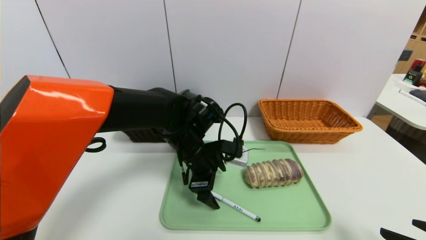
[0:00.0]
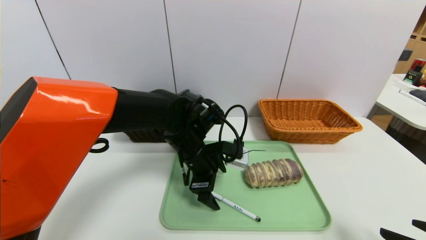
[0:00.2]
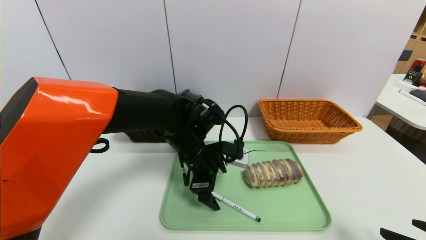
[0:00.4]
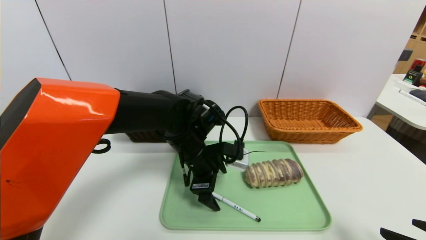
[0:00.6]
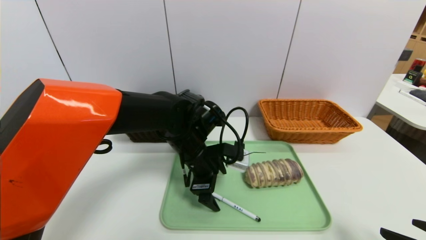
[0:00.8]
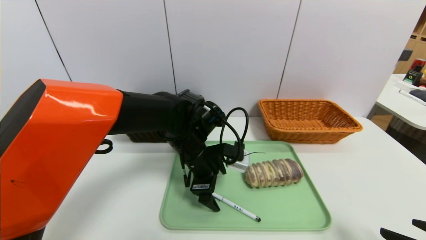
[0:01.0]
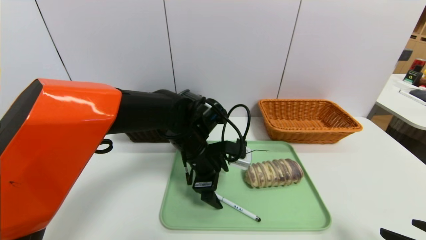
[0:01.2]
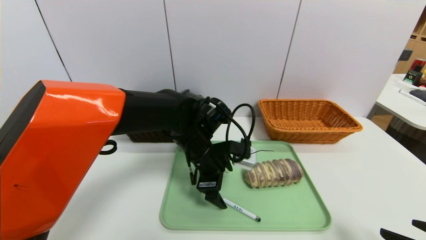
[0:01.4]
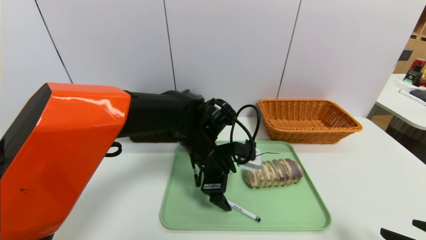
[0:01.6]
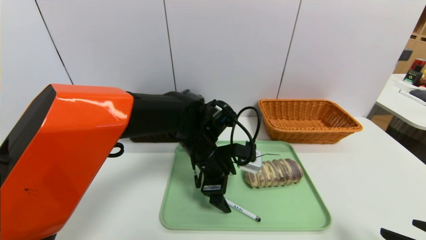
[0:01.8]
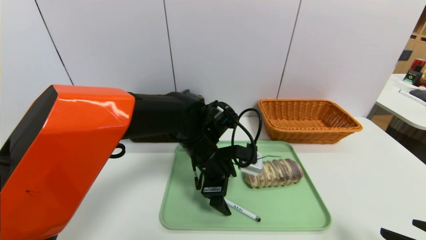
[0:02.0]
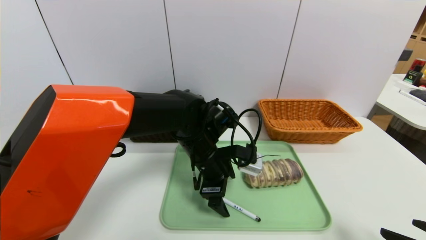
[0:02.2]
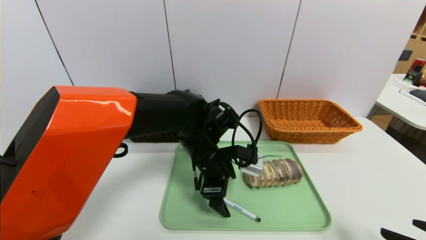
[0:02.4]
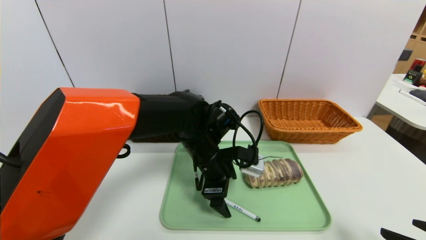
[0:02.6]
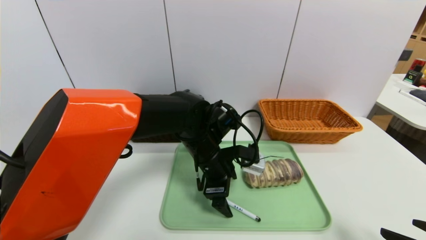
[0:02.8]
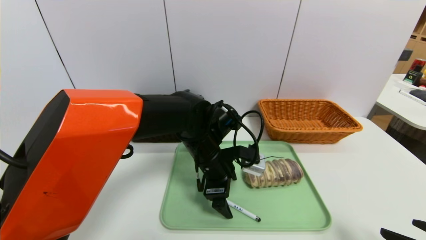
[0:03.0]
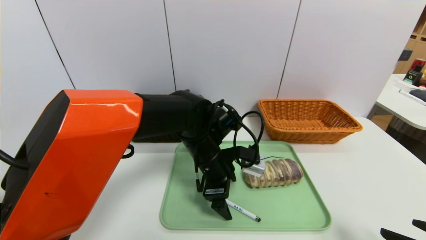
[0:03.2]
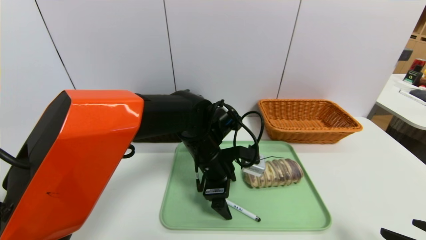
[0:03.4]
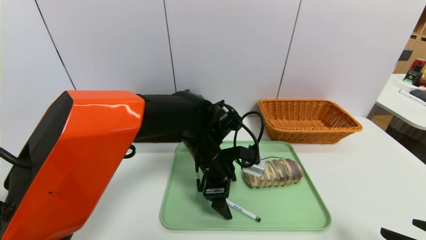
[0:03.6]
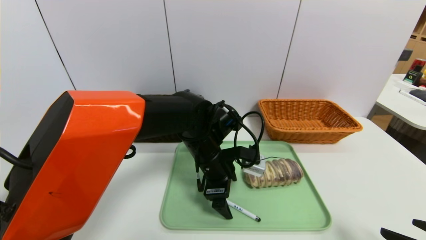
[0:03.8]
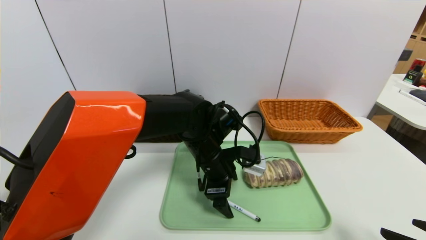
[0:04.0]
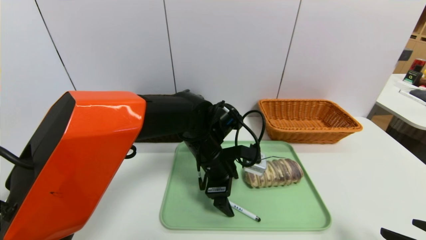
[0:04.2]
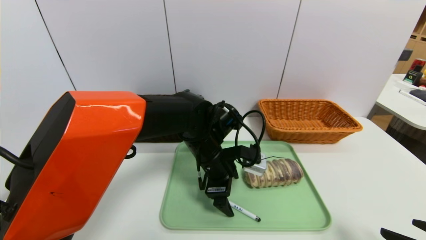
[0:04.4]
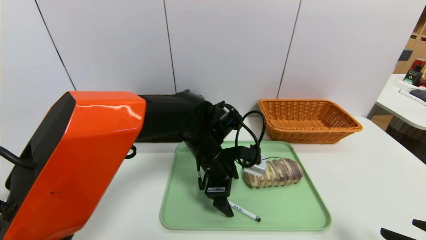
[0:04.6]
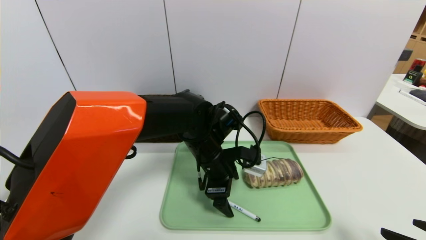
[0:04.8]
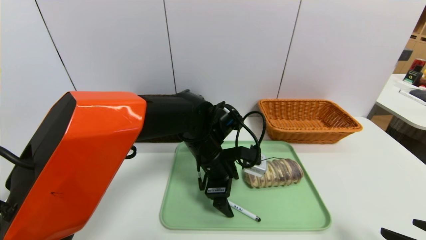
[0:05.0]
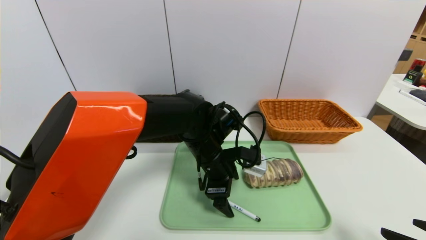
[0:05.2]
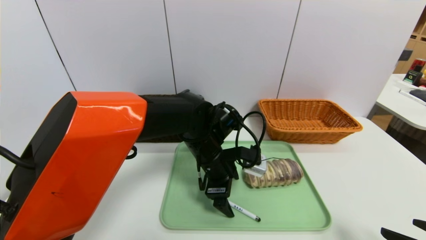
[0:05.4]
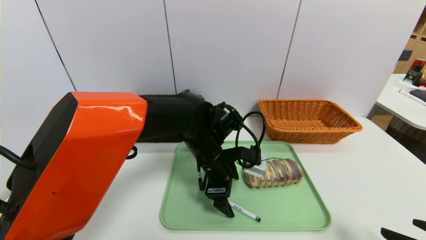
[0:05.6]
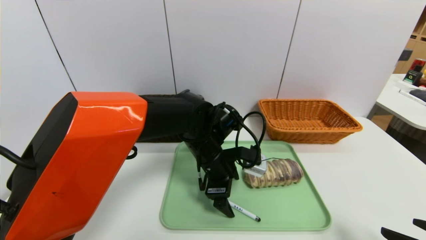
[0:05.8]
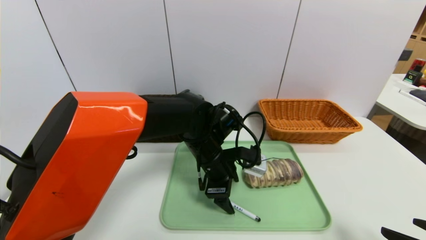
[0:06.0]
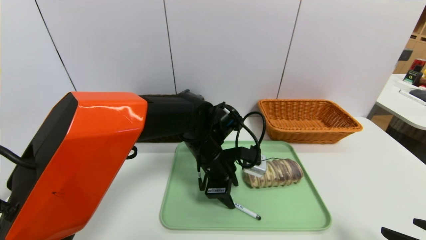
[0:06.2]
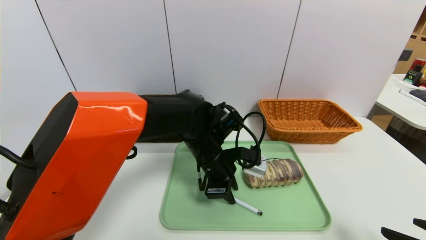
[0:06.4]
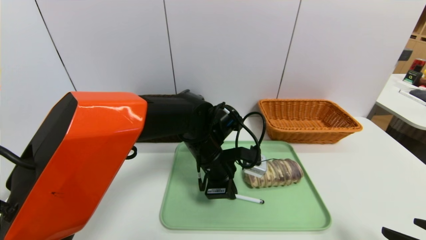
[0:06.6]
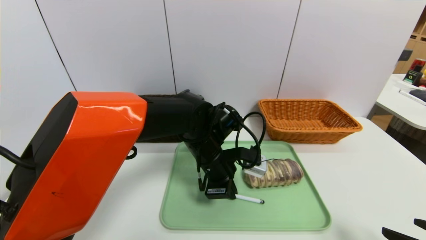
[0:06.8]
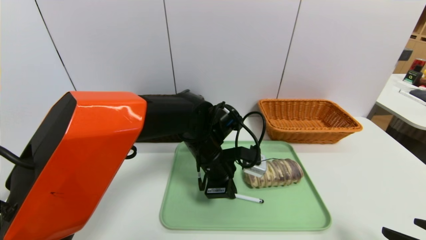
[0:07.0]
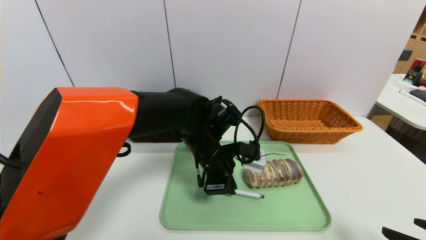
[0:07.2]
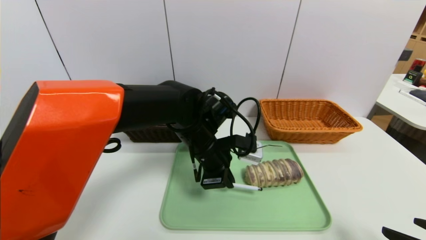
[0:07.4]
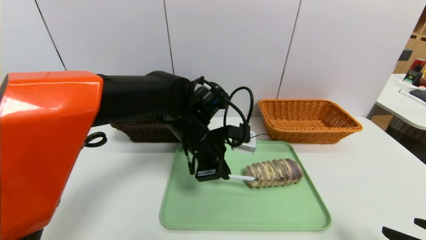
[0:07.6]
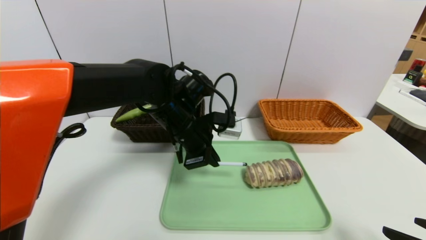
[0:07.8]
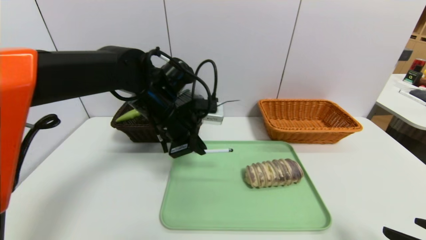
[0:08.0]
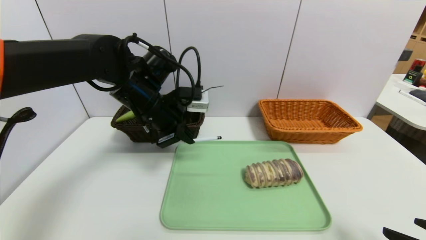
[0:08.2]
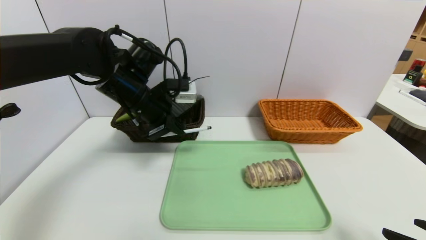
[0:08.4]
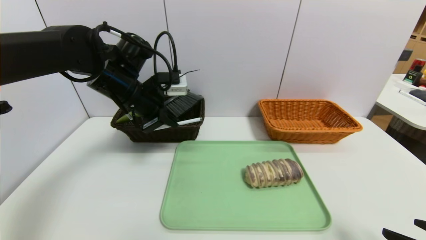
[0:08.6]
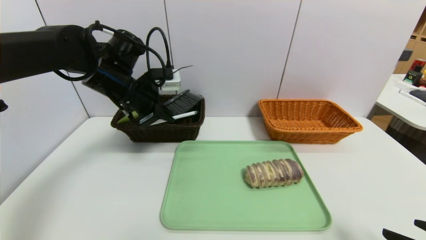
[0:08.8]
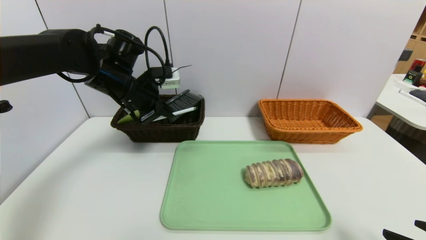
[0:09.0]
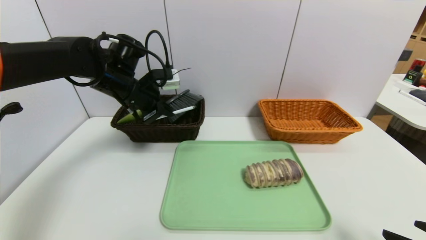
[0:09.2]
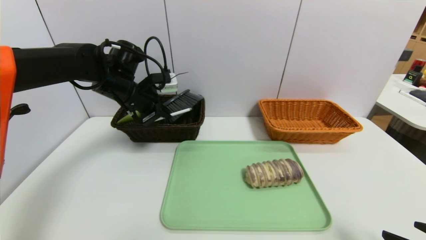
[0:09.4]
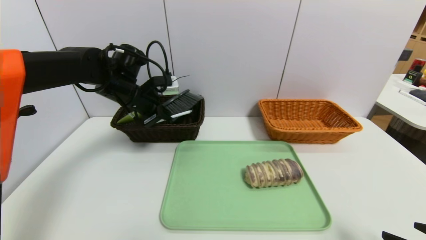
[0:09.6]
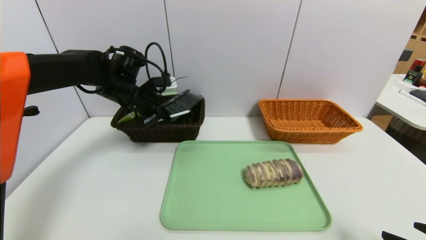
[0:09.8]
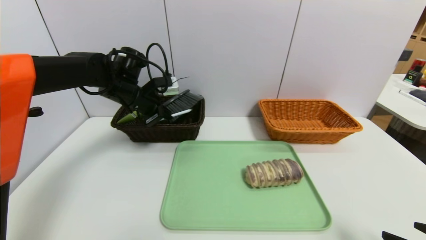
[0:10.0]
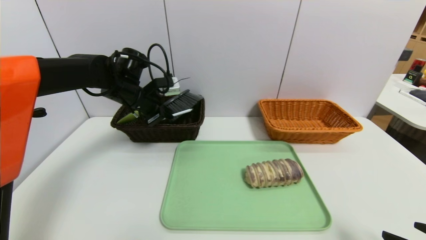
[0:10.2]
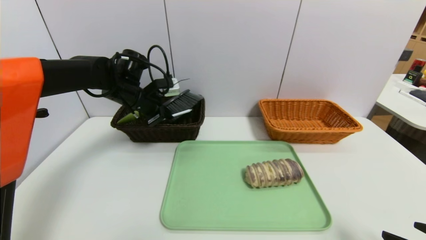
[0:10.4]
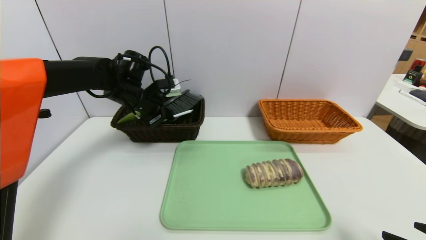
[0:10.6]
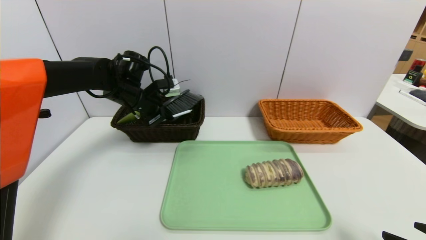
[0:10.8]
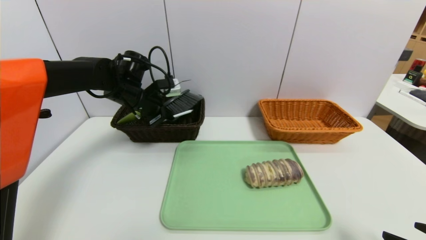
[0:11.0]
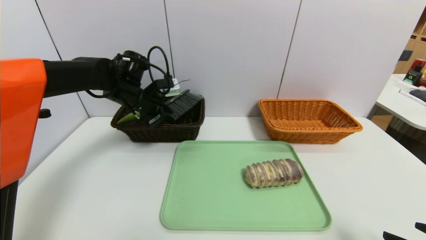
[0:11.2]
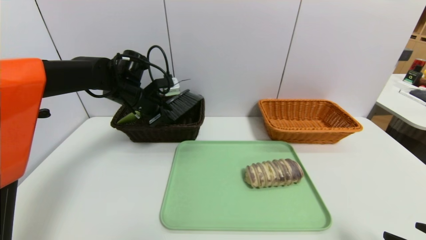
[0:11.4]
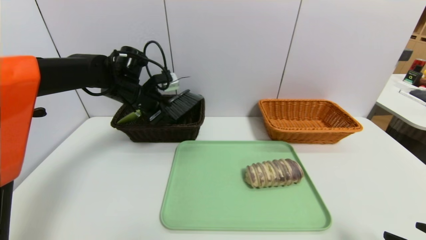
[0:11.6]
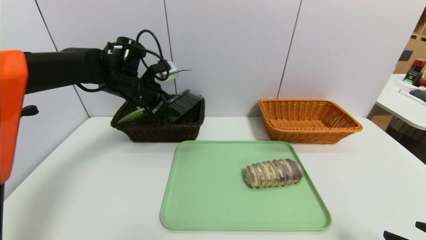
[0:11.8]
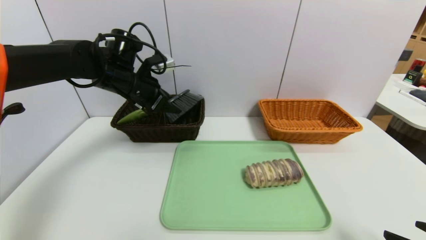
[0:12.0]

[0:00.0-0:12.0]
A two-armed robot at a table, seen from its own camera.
Task of the whole recording: place the food in the right basket with the right gripper, and place the non food items in the left basket with the left gripper.
Step, 0:00.0 to 0:11.6: Grasp the pen container and put it in the left basket.
0:00.0 to 0:03.0: The grippers make only small movements.
0:03.0 to 0:06.0: The two grippers keep their place.
0:06.0 to 0:07.6: The left gripper shifts by approximately 5 cm, and closes.
0:07.6 to 0:09.0: The left gripper heads to the left and upward, covering about 15 cm.
0:09.0 to 0:10.4: The left gripper goes some 5 cm forward.
0:10.4 to 0:12.0: The left gripper opens.

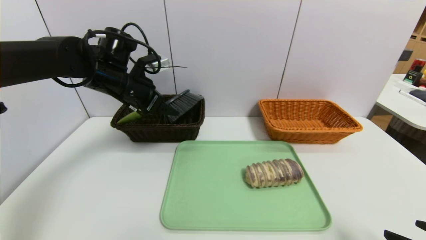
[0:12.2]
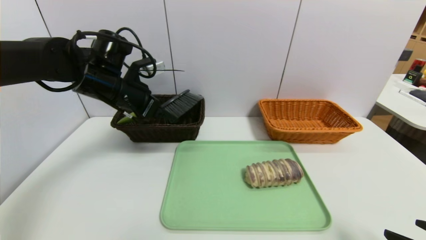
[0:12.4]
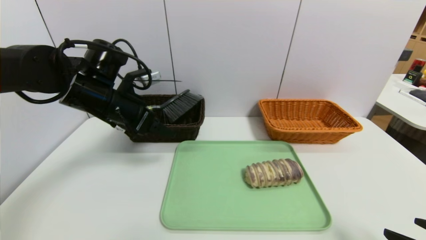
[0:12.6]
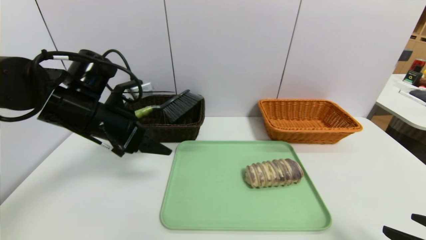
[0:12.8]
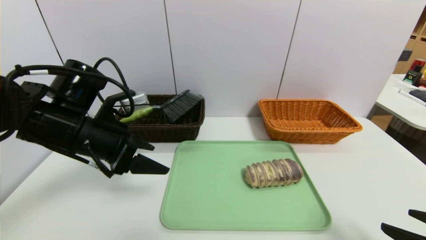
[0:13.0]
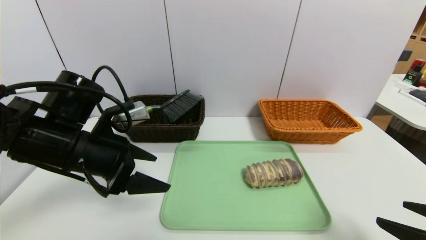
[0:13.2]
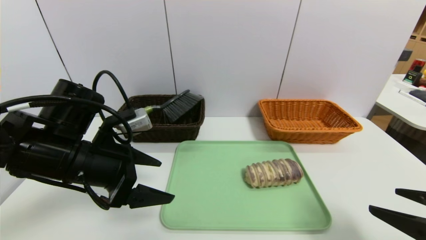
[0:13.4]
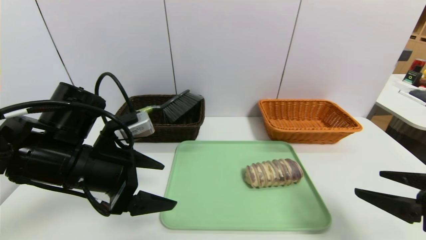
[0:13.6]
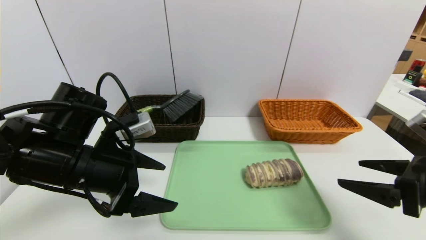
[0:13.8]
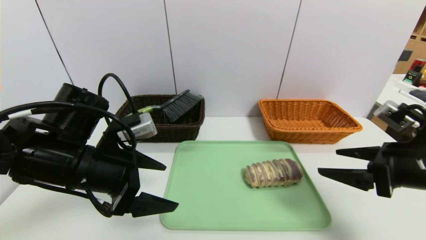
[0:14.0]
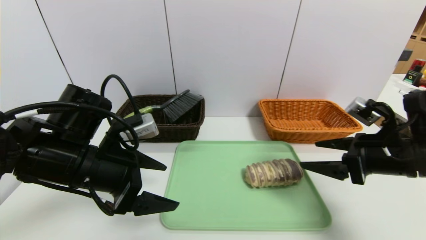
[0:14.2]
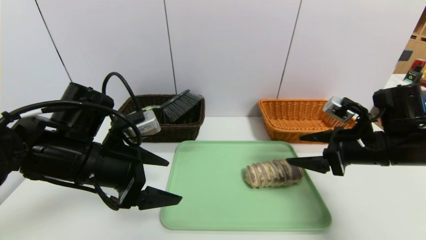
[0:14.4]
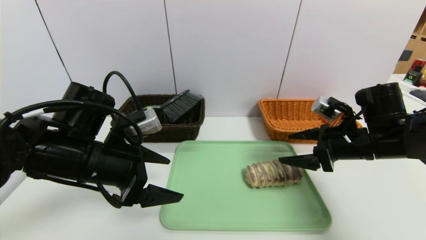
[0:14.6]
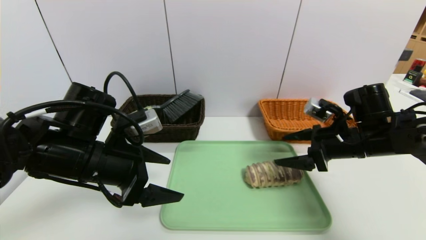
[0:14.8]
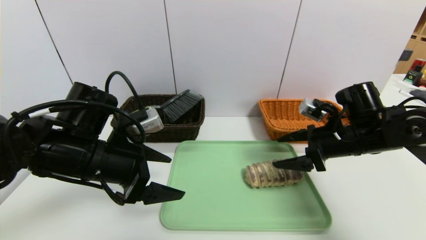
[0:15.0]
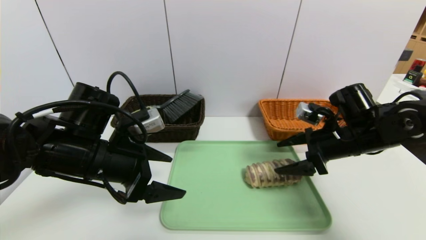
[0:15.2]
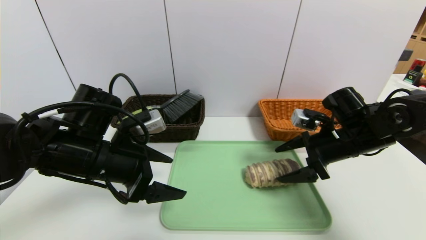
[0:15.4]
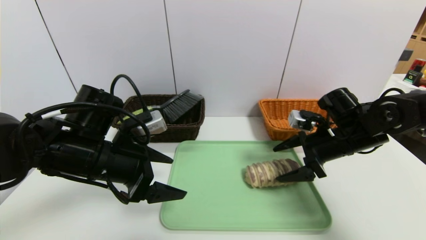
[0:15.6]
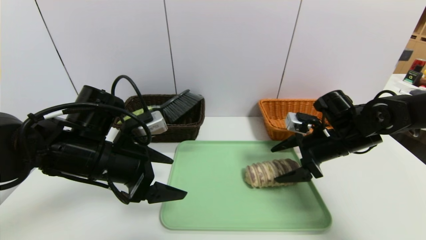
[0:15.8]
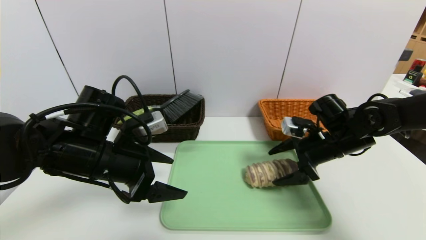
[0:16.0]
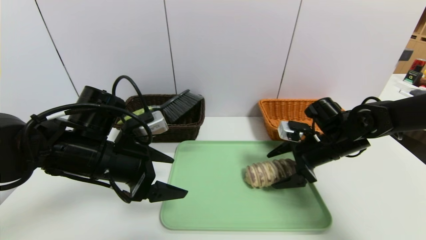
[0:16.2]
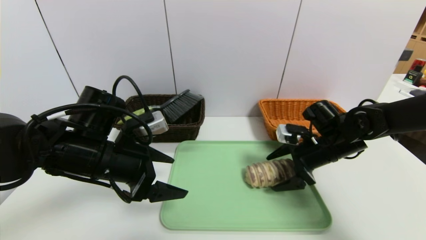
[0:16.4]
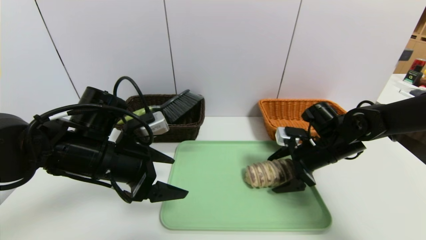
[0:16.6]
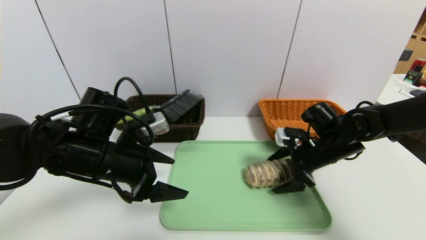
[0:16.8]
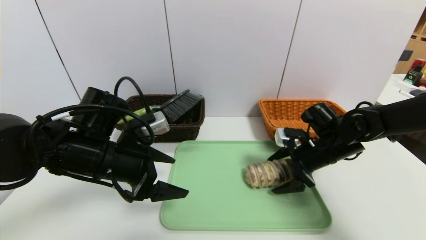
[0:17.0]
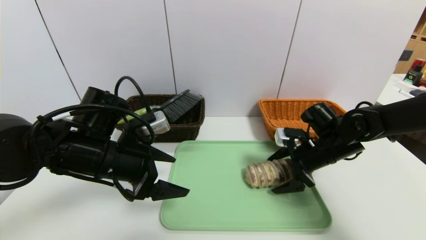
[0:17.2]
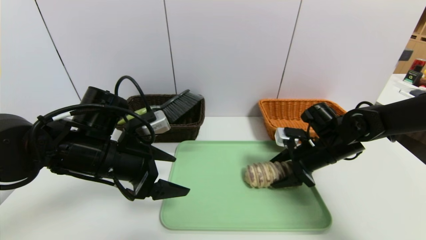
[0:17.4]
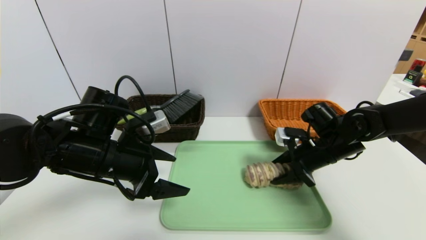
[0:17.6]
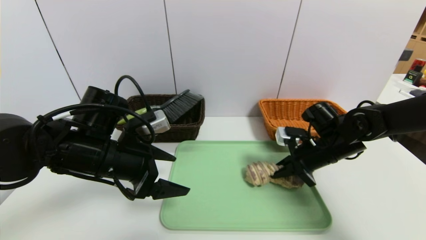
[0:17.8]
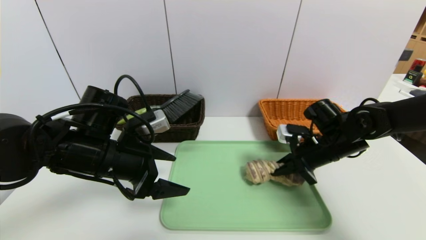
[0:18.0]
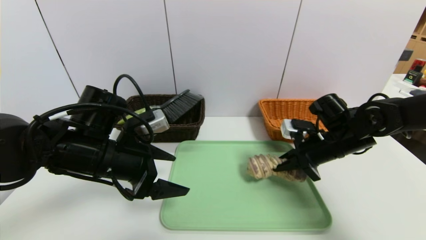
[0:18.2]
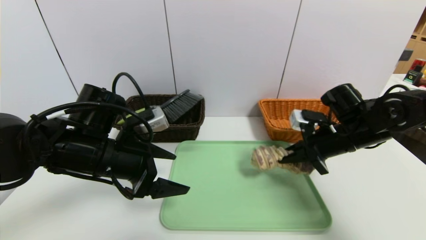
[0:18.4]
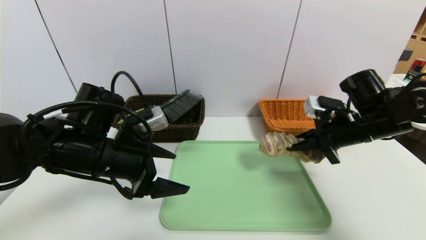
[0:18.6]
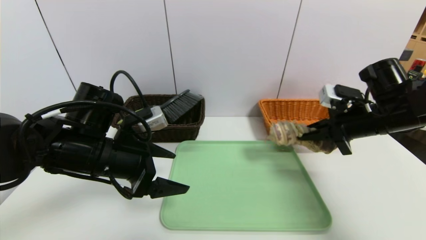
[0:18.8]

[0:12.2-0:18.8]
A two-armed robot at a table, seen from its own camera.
Task of the whole recording: place the food in the right basket with the right gripper, and place the non food items in the left basket with the left gripper.
0:12.2 to 0:13.8: The right gripper travels forward by roughly 10 cm; the left gripper heads backward, covering about 15 cm.
0:13.8 to 0:15.4: The right gripper goes approximately 15 cm forward.
0:15.4 to 0:17.2: The right gripper ends up approximately 5 cm from where it was.
0:17.2 to 0:18.8: The right gripper goes some 10 cm upward and to the right, and closes up.
